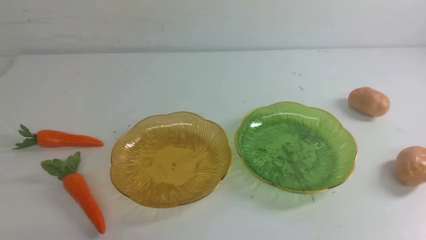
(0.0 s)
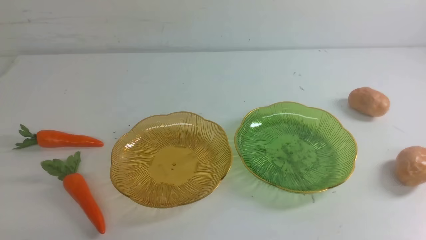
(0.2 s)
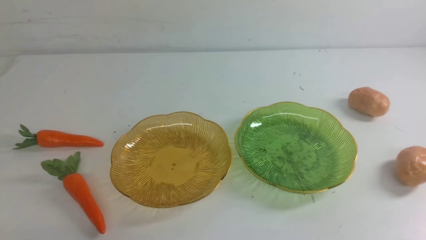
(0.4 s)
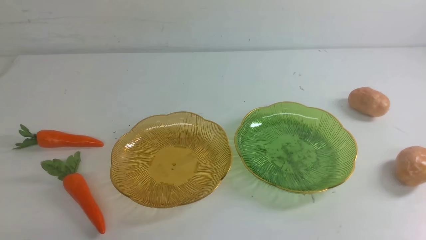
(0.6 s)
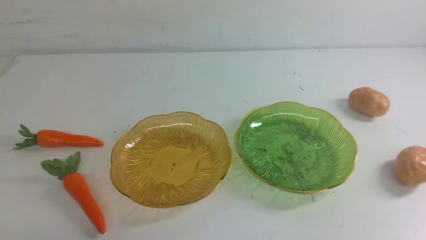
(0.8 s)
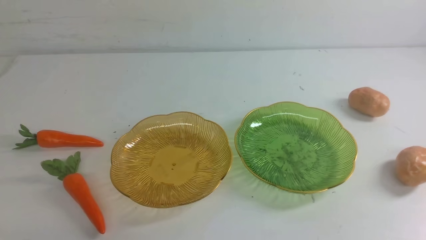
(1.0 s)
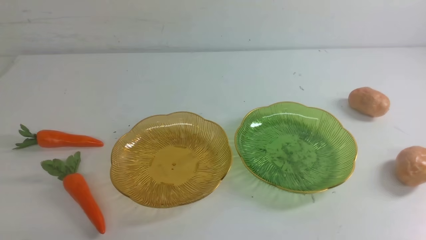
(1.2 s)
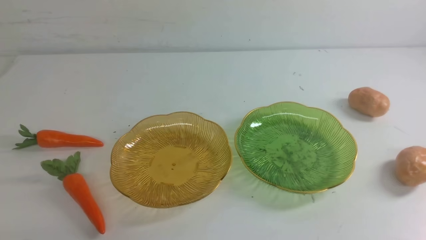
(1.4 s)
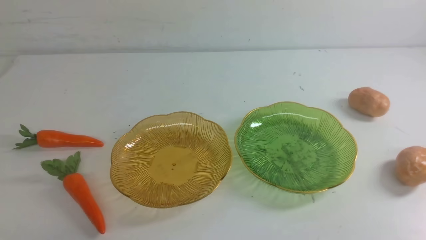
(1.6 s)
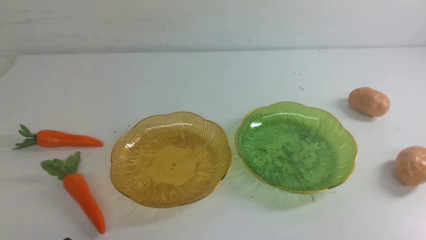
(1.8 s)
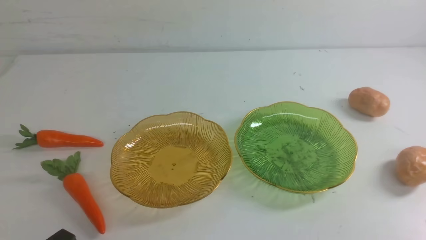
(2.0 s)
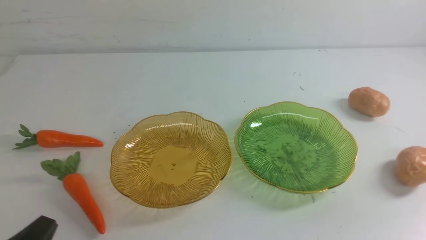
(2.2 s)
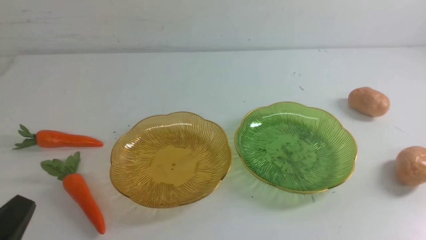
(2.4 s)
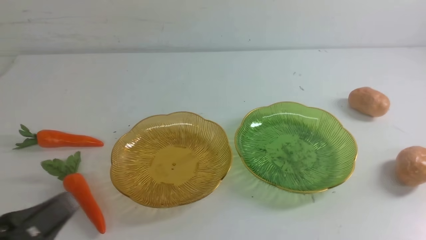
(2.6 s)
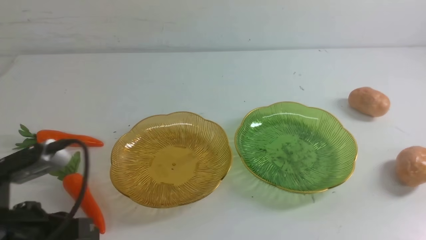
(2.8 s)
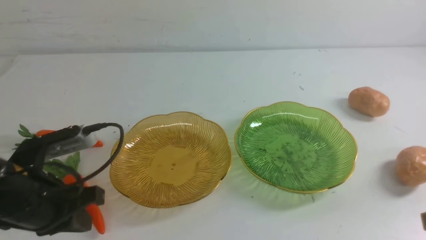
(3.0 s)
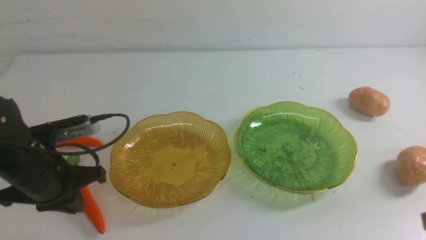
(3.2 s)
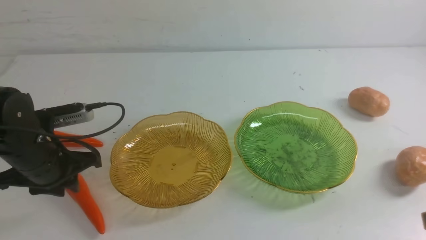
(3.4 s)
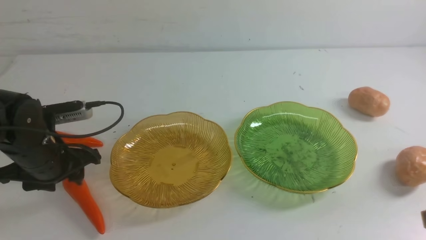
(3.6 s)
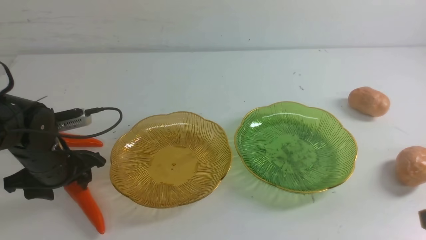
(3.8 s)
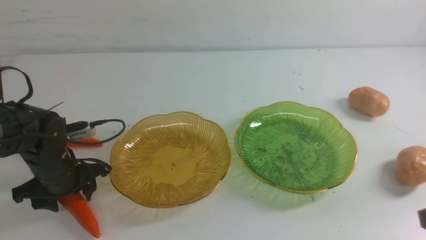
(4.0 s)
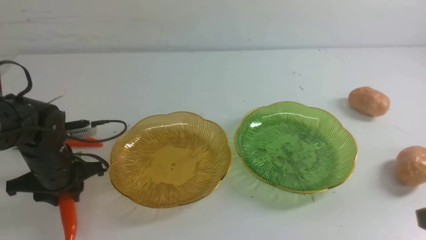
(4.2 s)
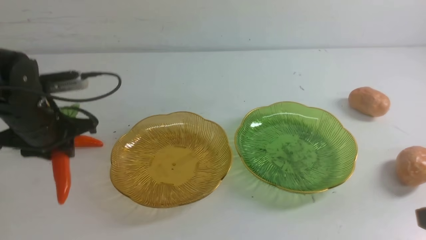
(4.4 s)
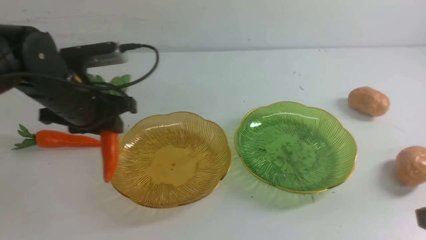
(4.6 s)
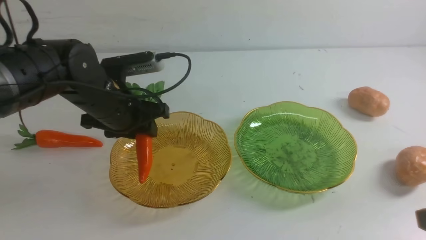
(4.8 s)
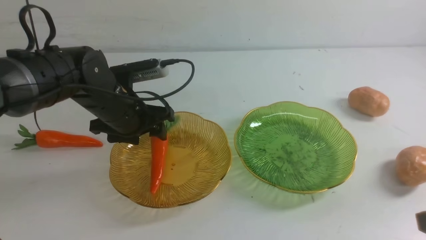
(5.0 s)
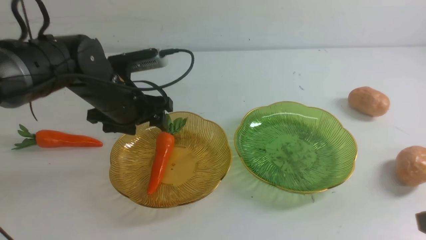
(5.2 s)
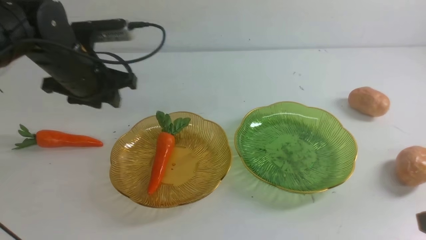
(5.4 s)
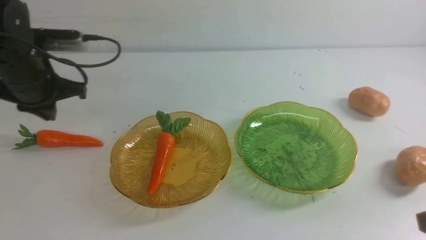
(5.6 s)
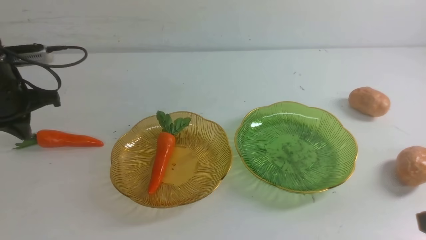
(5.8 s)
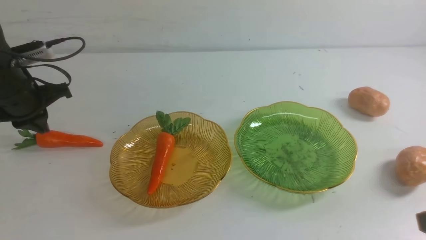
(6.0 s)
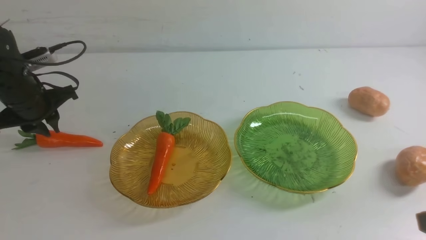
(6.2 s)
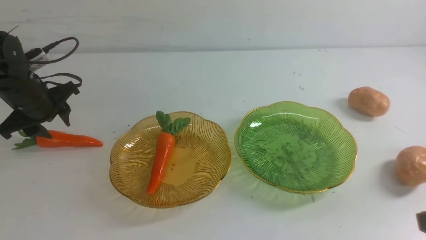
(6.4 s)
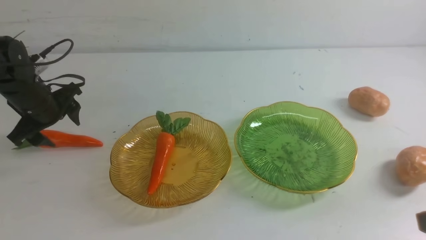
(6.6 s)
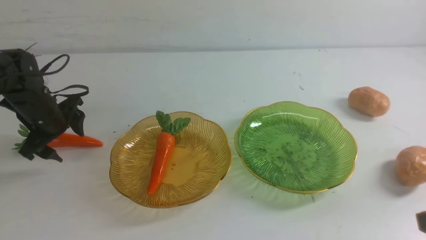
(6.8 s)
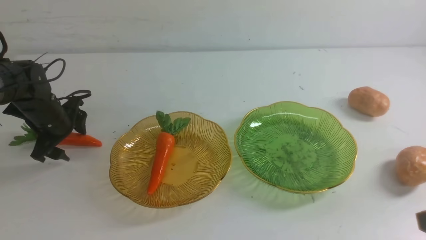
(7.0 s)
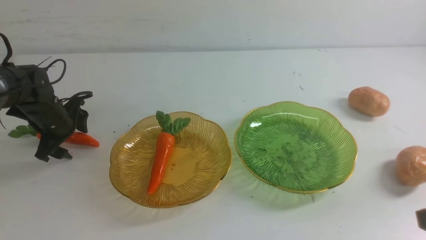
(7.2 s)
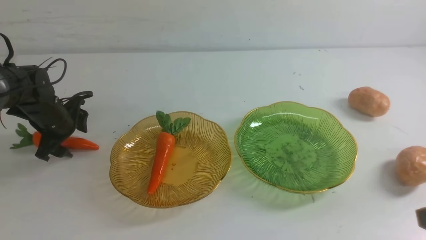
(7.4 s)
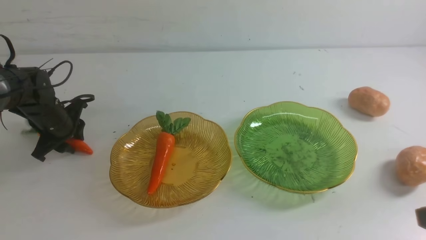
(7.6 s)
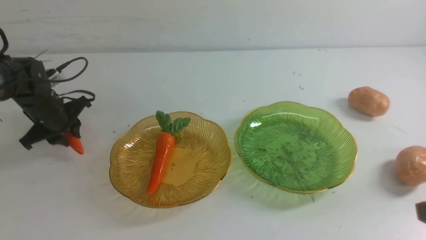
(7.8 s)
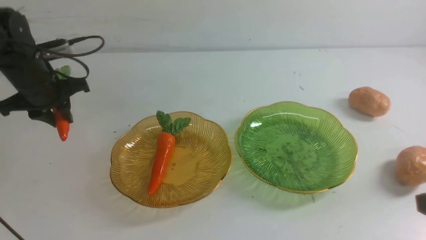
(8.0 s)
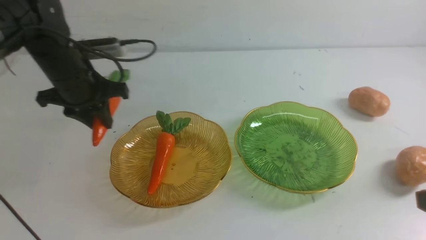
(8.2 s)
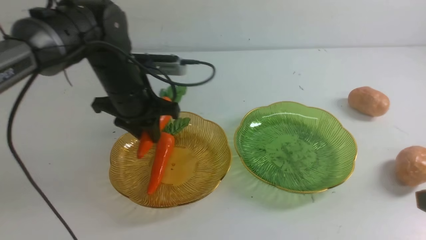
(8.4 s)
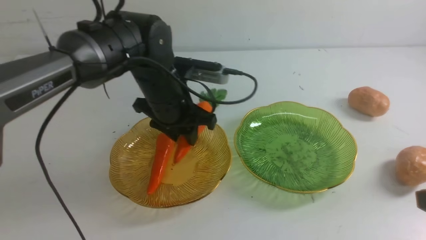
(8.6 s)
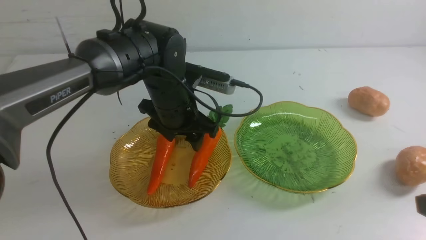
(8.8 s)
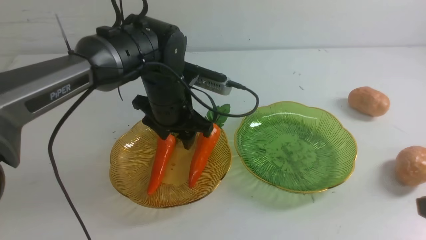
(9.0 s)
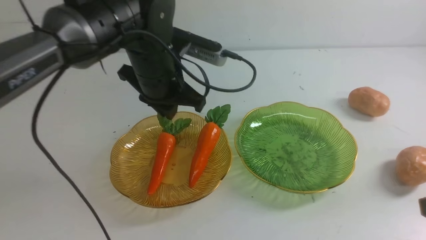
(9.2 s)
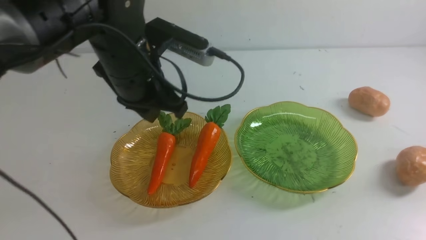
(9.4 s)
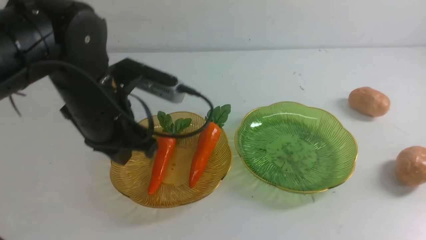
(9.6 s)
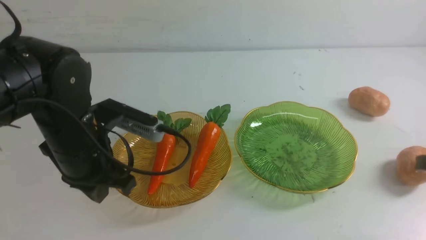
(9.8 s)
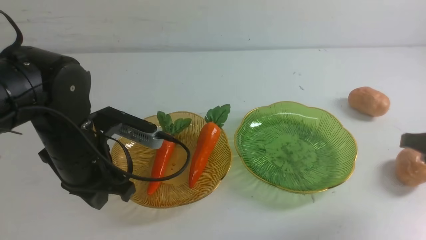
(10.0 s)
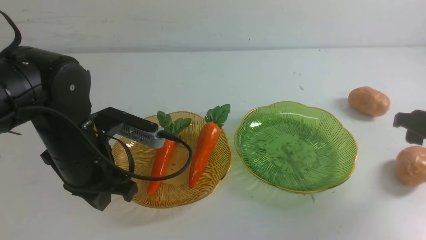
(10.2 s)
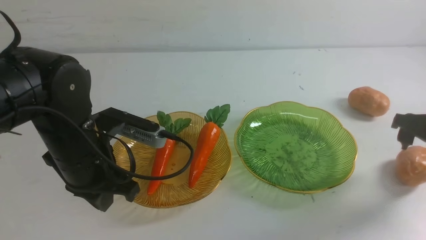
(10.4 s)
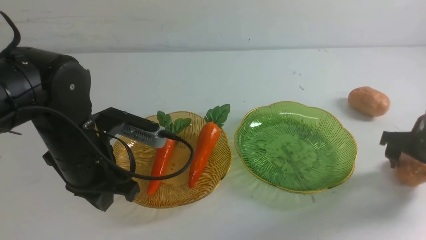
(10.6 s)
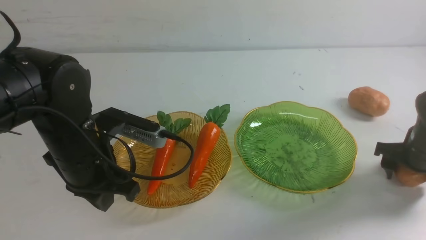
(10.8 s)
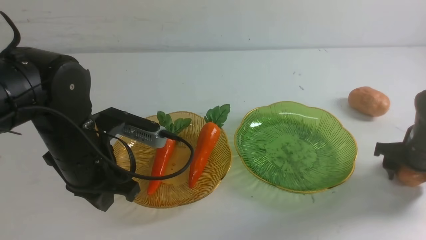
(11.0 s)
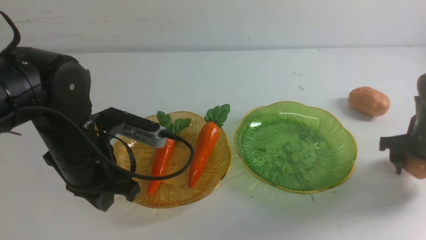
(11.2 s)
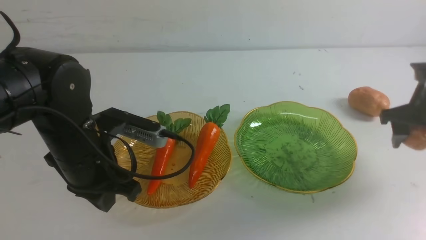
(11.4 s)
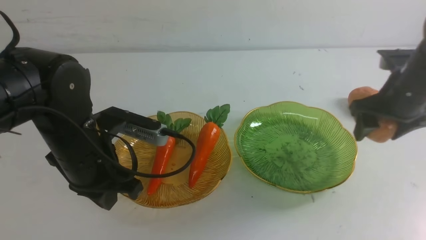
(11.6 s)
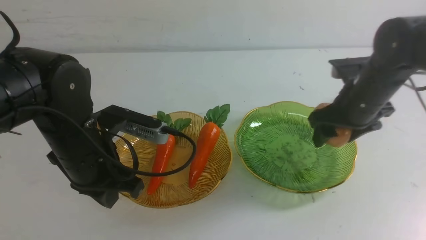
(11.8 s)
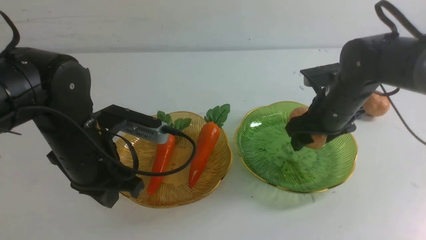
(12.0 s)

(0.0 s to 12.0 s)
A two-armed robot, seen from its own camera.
Step, 0.0 s - 9.0 s: use the left arm to grab a carrot and put it into the left plate.
1.6 s - 3.0 s: The left gripper shifts approximately 15 cm forward and upward.
3.0 s - 4.4 s: The left gripper travels forward by some 10 cm, and opens.
4.4 s - 6.0 s: The left gripper goes about 10 cm to the left, and closes up.
6.0 s - 7.6 s: The left gripper moves downward and forward, approximately 10 cm, and opens its fingers.
7.6 s - 9.0 s: The left gripper heads to the right and upward, covering roughly 25 cm.
9.0 s - 10.4 s: The right gripper heads forward and downward, covering roughly 25 cm, and opens, while the left gripper goes some 15 cm backward and to the left, and closes.
10.4 s - 12.0 s: The right gripper travels to the left by about 15 cm.

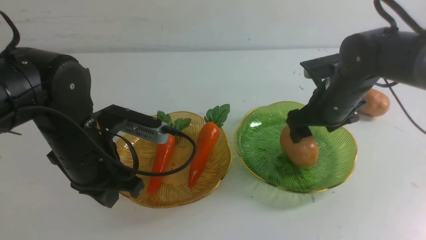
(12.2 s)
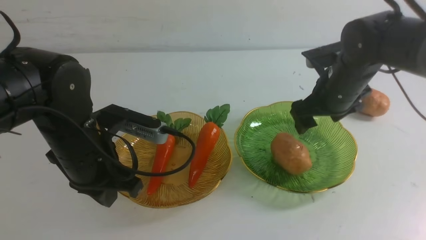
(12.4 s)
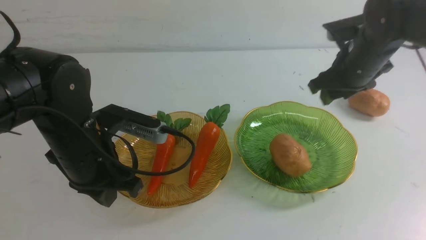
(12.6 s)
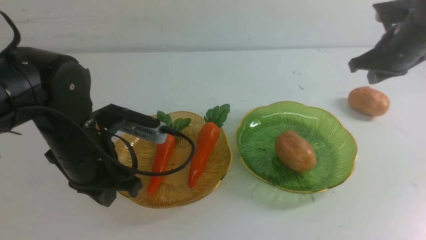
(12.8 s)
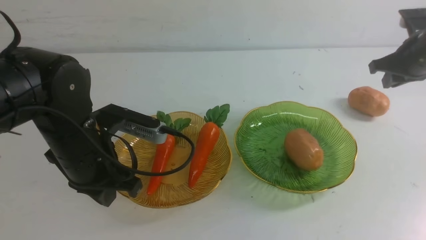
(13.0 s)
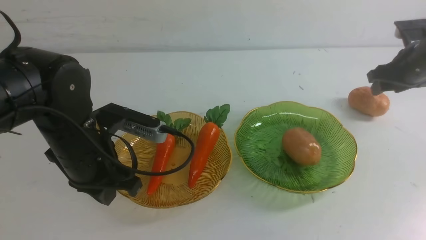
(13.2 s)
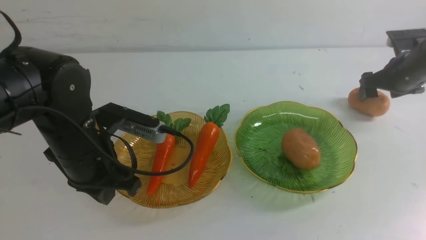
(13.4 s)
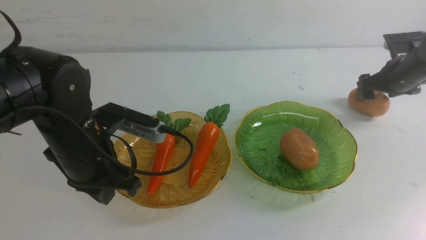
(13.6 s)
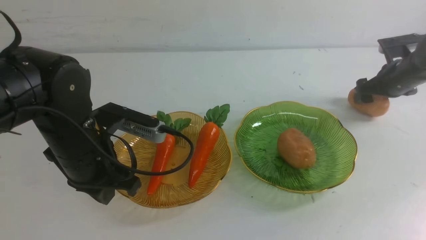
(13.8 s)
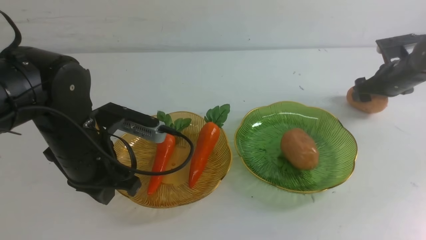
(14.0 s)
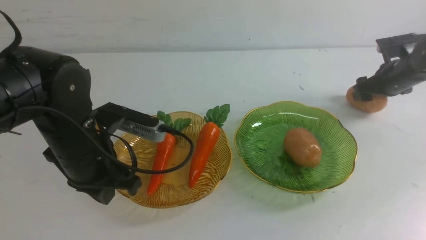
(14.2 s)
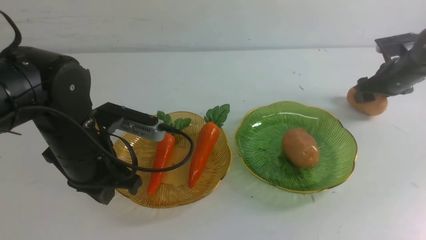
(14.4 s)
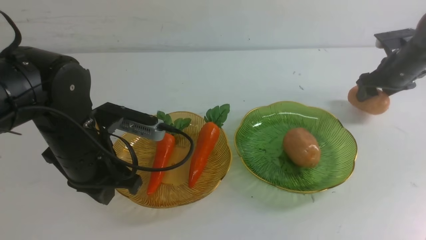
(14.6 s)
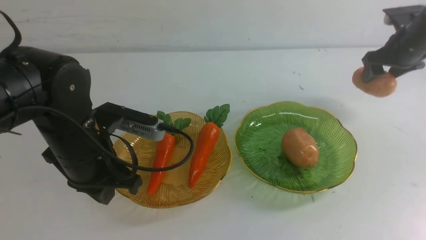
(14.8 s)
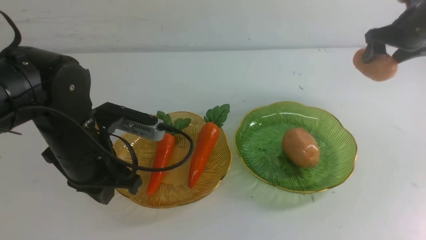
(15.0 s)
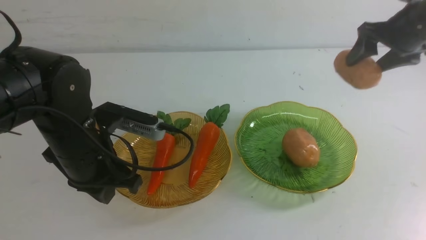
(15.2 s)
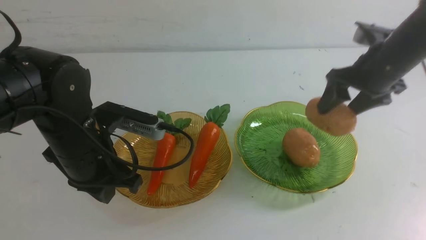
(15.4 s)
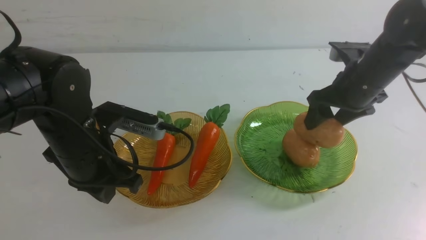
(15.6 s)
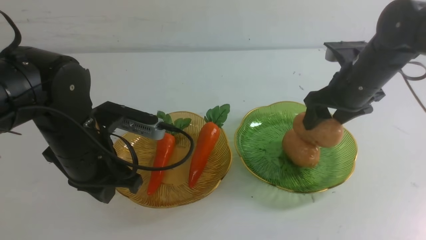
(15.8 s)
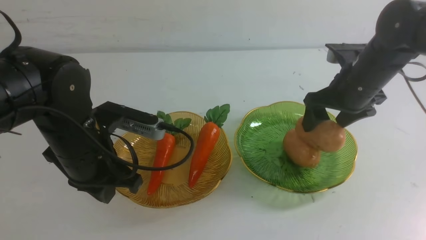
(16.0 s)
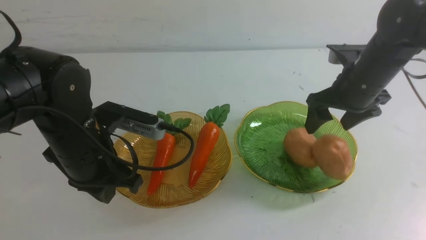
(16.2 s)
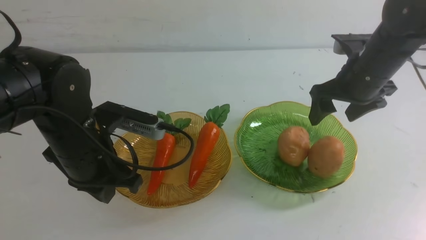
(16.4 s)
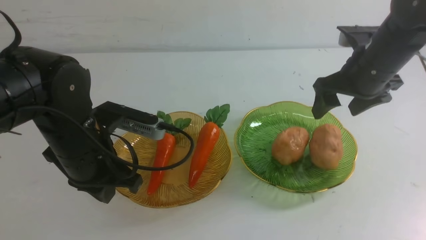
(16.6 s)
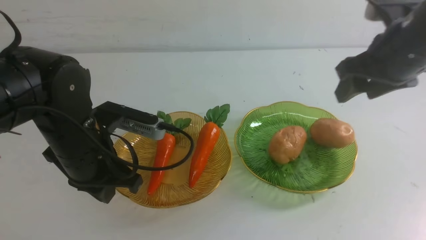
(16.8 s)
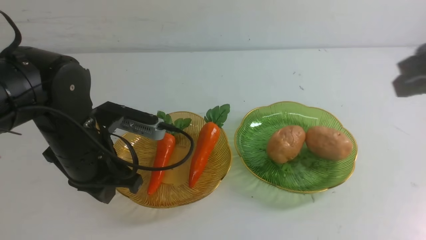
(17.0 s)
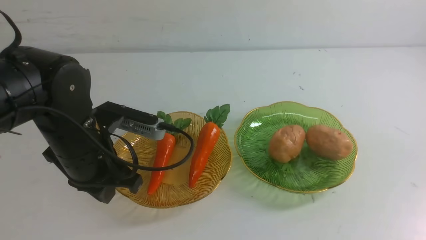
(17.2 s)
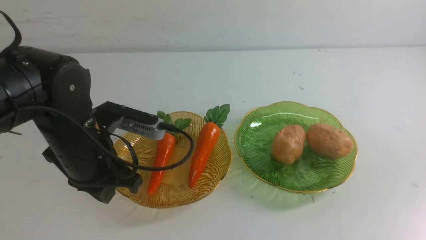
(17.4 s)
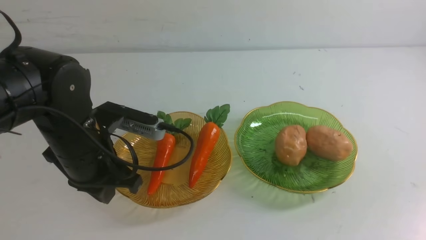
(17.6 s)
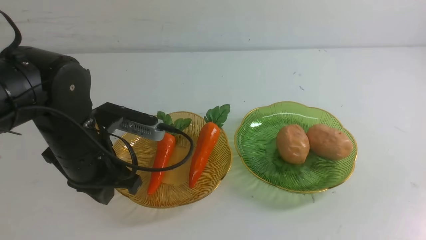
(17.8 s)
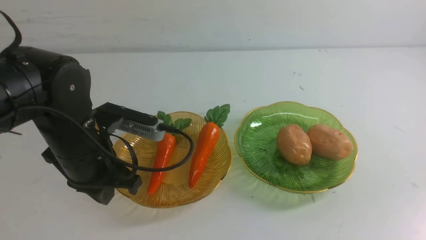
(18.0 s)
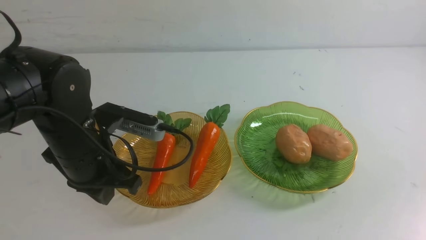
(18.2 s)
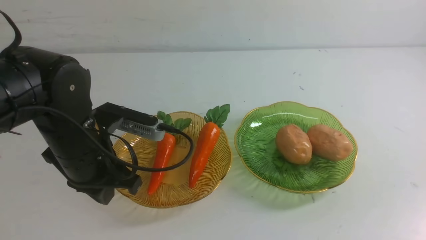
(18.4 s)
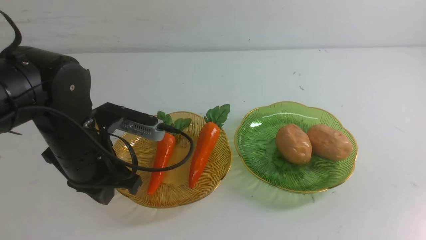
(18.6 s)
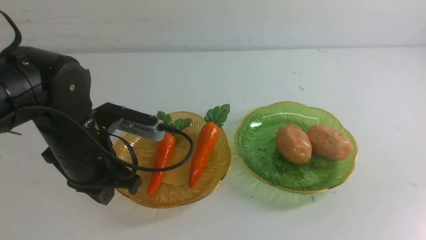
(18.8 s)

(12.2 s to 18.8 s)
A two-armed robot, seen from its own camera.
Step, 12.6 s - 16.4 s: Grab a potato with your right arm and put it on the right plate.
12.2 s - 13.8 s: The right gripper travels to the right and forward by approximately 20 cm, and closes and opens again.
13.8 s - 15.4 s: The right gripper heads to the left, upward and backward, covering about 20 cm.
15.4 s - 17.2 s: The right gripper is displaced backward and upward by some 30 cm, and closes.
17.2 s - 18.8 s: The right gripper shifts about 15 cm downward and backward.
